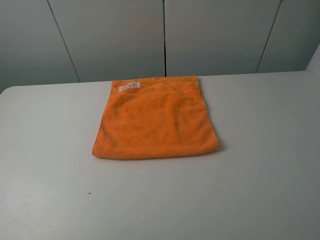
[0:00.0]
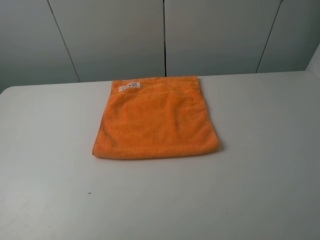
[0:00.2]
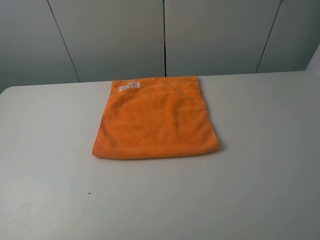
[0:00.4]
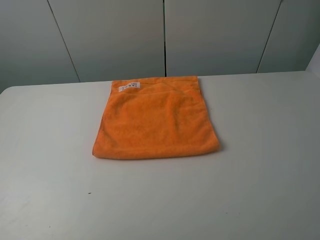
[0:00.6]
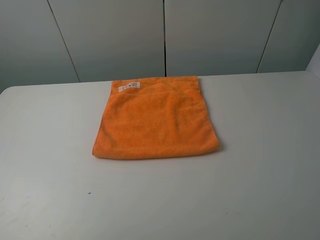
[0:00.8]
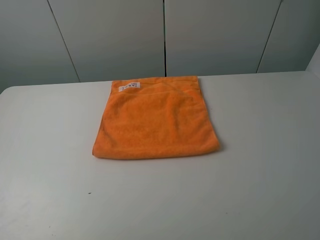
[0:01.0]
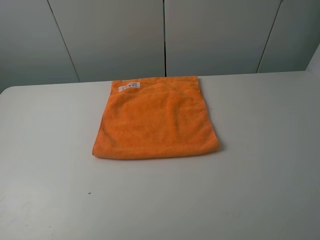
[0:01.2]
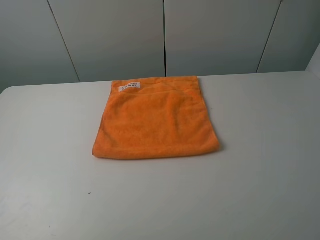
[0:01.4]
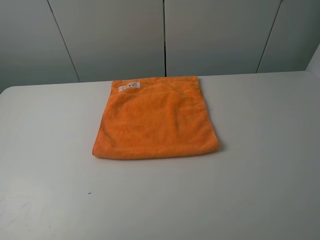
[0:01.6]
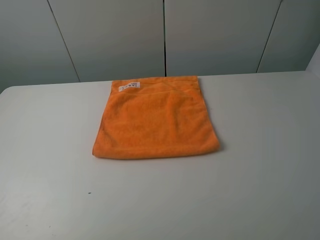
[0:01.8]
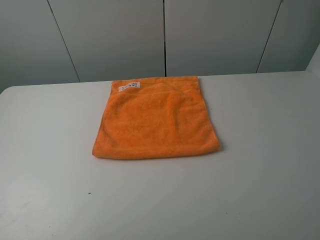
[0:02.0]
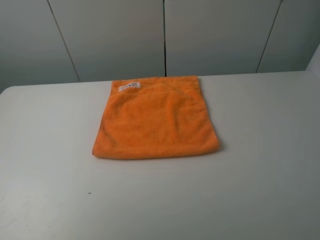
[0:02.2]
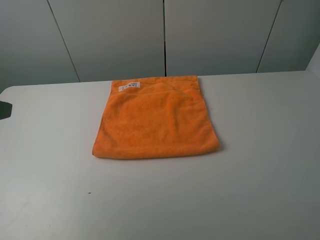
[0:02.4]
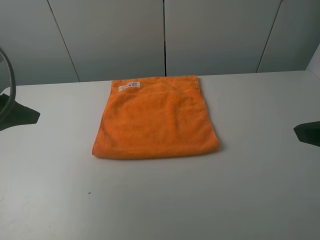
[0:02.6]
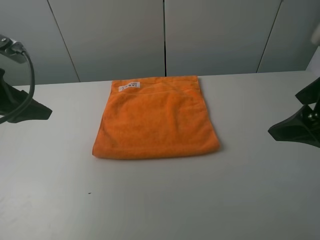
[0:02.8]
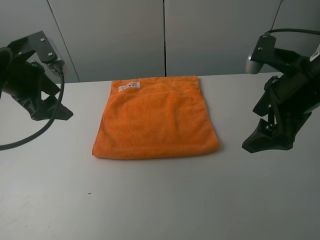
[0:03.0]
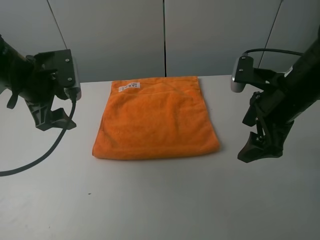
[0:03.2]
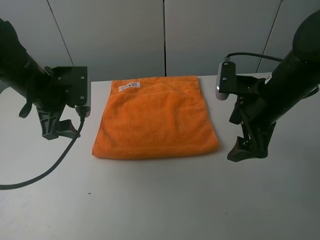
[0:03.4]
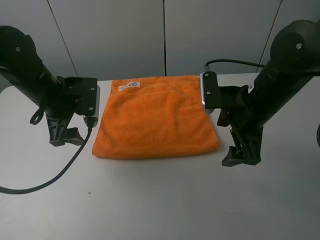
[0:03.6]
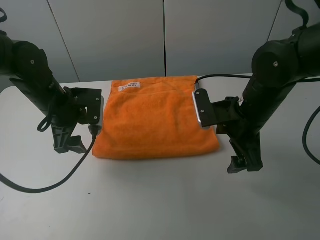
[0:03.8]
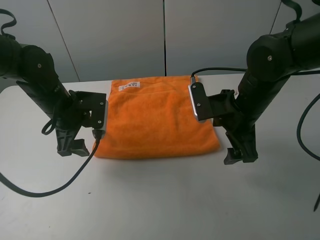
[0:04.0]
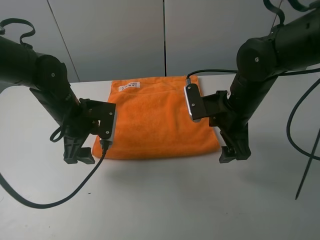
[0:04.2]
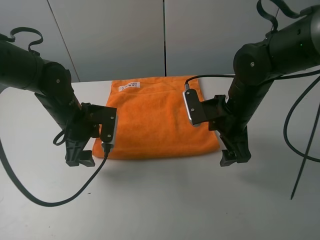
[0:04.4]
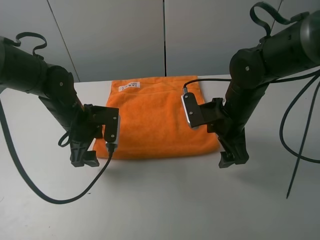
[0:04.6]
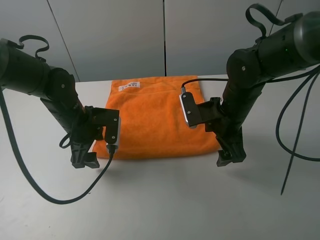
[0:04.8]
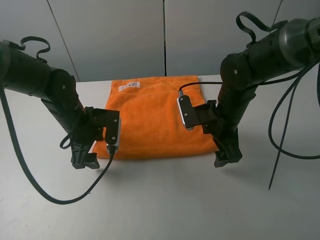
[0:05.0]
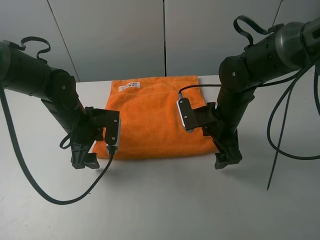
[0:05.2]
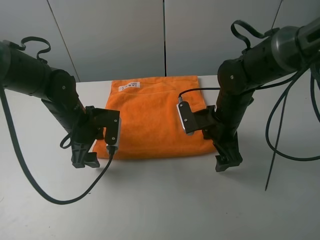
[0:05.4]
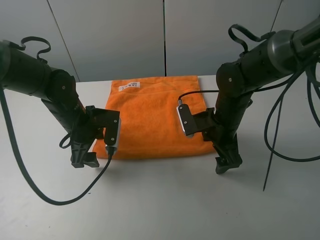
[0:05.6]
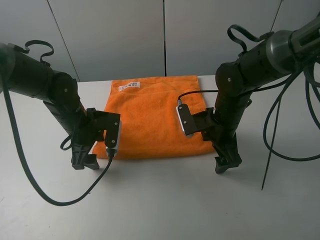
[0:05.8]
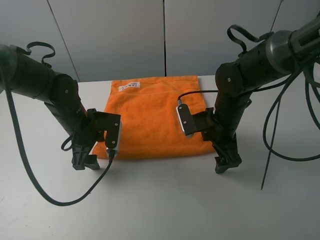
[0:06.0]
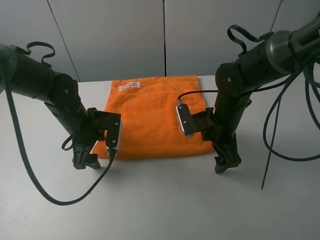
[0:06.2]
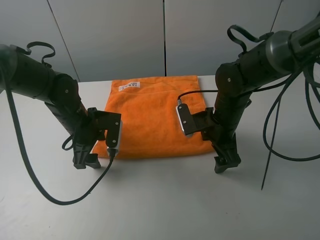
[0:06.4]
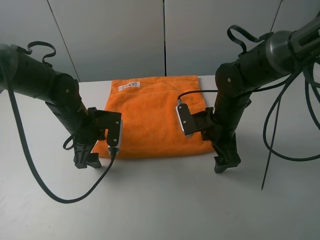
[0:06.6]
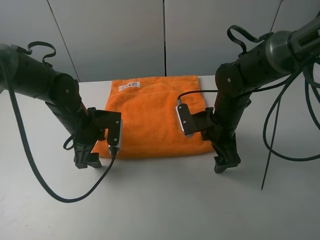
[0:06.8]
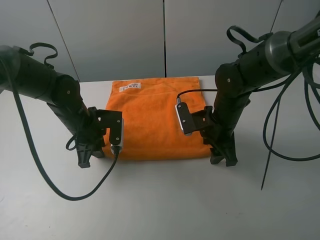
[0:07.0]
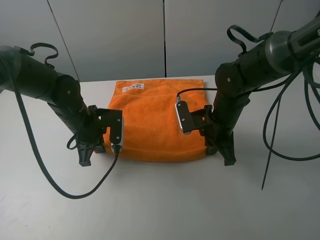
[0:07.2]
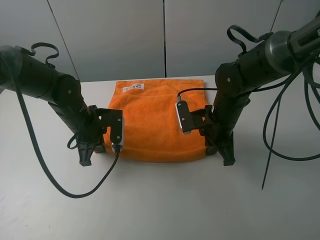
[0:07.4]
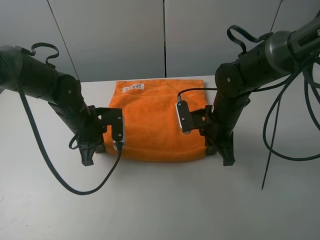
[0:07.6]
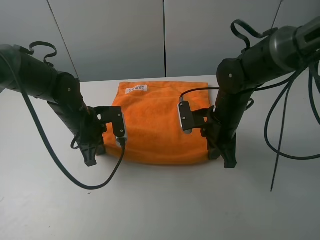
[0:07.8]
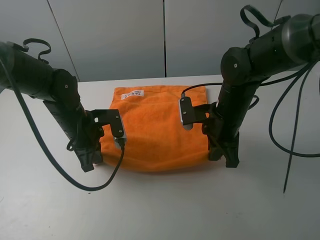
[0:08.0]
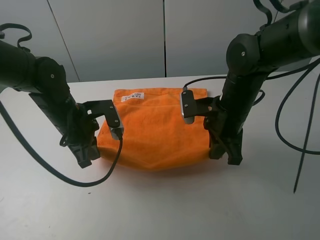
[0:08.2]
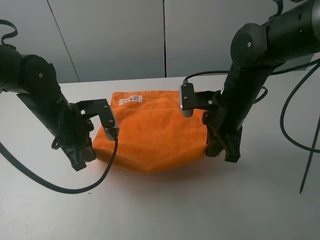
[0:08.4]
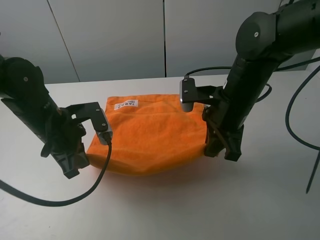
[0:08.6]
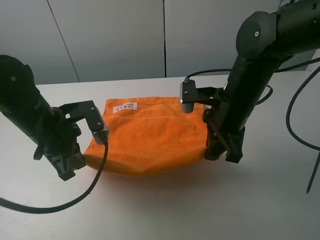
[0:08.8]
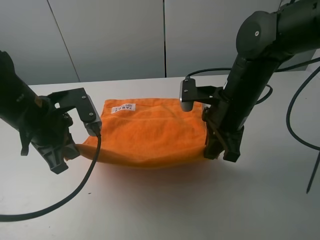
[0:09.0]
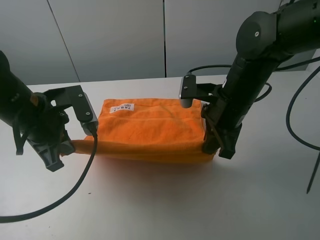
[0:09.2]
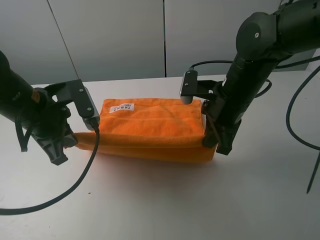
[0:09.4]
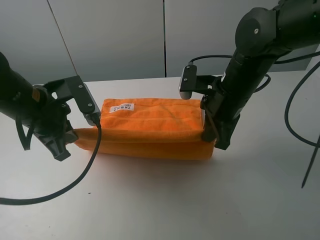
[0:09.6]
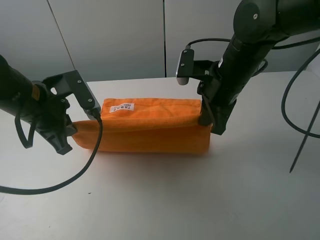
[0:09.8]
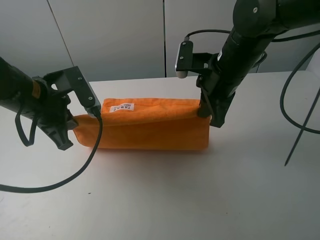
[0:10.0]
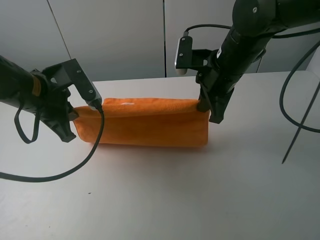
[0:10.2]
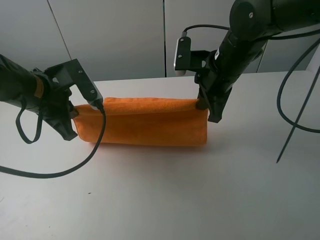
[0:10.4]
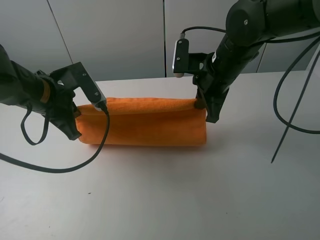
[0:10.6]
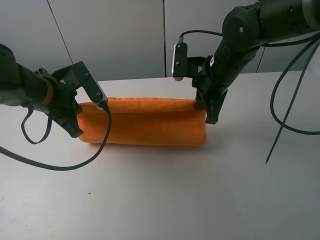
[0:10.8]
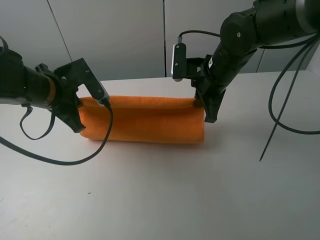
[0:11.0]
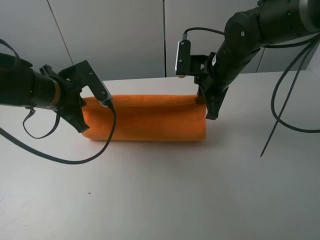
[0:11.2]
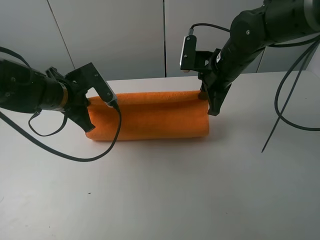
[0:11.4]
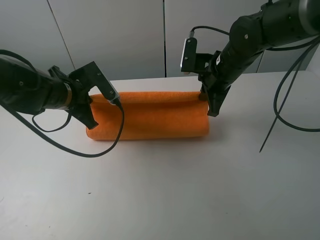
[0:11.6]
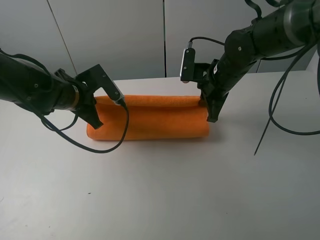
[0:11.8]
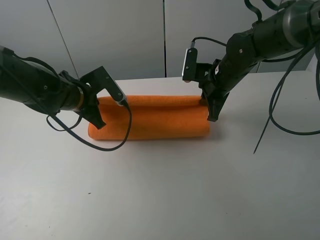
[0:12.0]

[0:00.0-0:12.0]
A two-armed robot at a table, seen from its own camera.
Task of the whole recording: fold the towels on the table.
Step, 0:00.0 to 0:07.4: Grasp the orange towel with the left gripper.
0:00.0 to 0:01.6: Both grippers stay about where they are.
0:01.6 to 0:03.0: The two grippers go some 25 cm forward.
0:03.0 to 0:04.4: The left gripper heads downward and to the right, covering approximately 15 cm. Meanwhile the right gripper shifts about 10 cm downward and to the left.
0:04.4 to 0:06.0: The grippers stay close to where they were, moving slightly.
0:06.0 to 0:07.6: The left gripper closes up, while the right gripper closes.
0:07.6 to 0:09.0: The right gripper moves upward, roughly 10 cm, while the left gripper shifts about 15 cm upward and backward.
0:09.0 to 0:10.4: The right gripper moves forward, approximately 5 cm.
0:10.4 to 0:12.0: The grippers both shift downward and forward by approximately 10 cm.

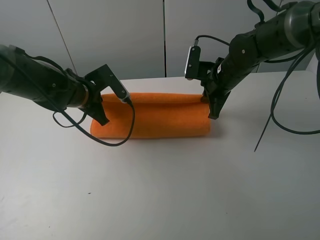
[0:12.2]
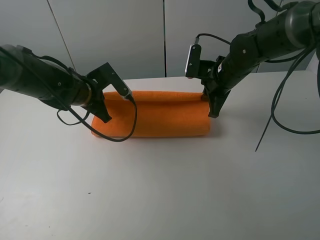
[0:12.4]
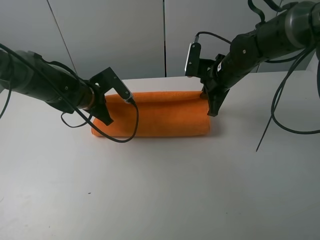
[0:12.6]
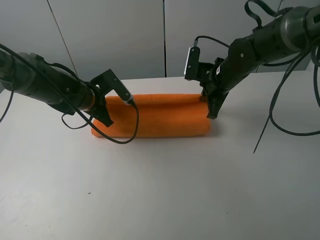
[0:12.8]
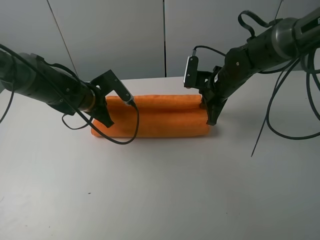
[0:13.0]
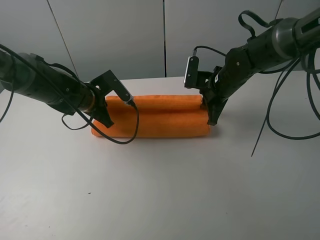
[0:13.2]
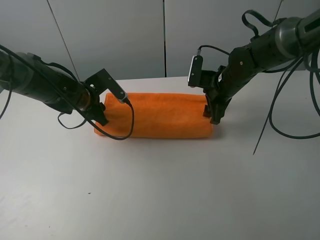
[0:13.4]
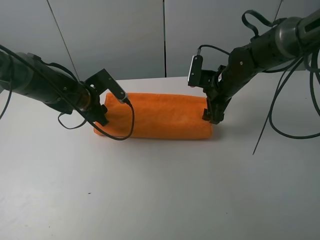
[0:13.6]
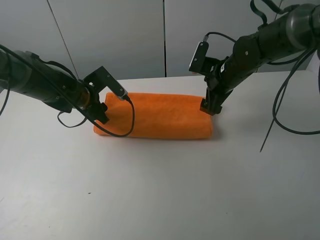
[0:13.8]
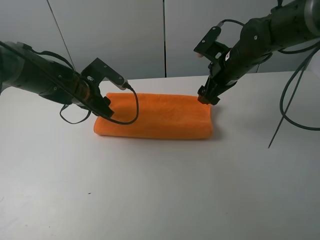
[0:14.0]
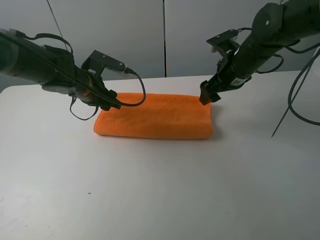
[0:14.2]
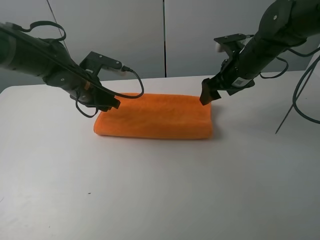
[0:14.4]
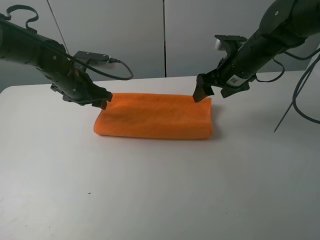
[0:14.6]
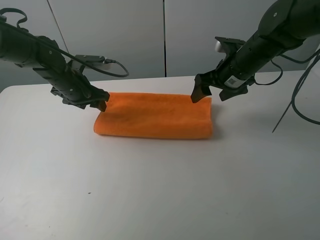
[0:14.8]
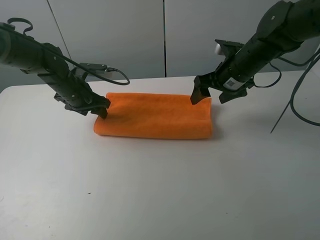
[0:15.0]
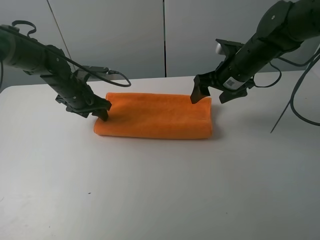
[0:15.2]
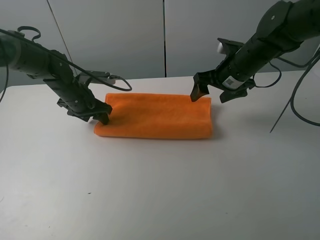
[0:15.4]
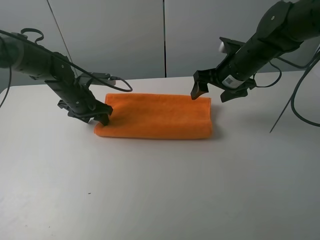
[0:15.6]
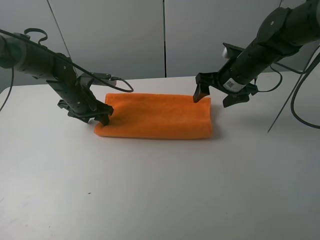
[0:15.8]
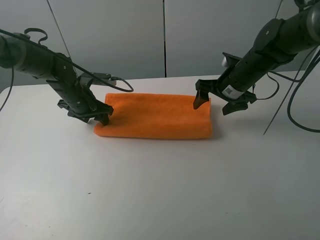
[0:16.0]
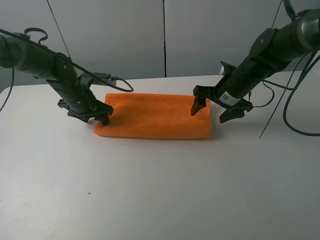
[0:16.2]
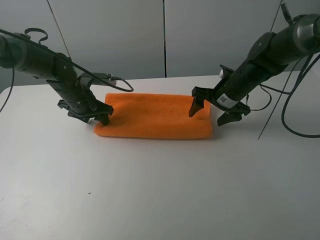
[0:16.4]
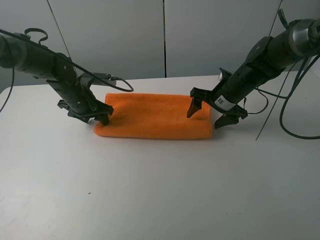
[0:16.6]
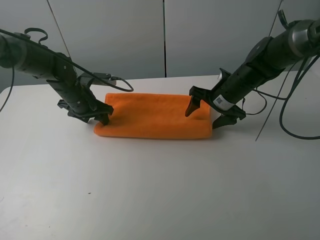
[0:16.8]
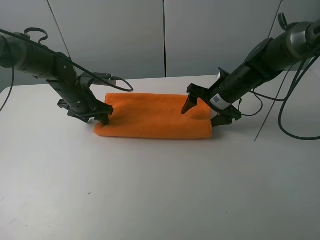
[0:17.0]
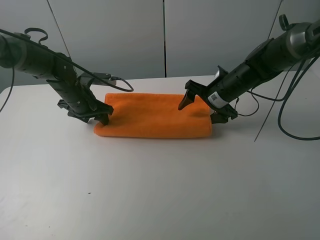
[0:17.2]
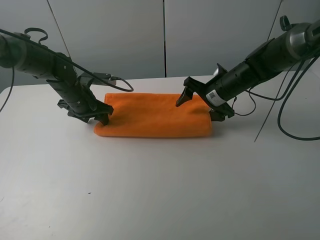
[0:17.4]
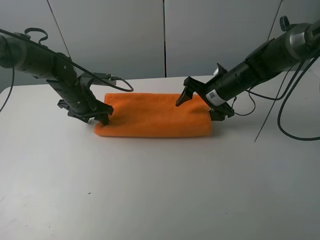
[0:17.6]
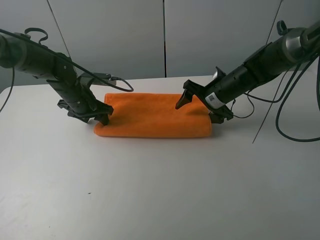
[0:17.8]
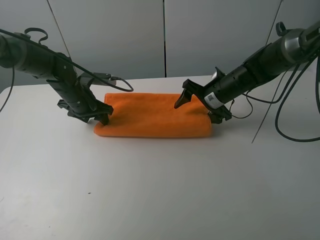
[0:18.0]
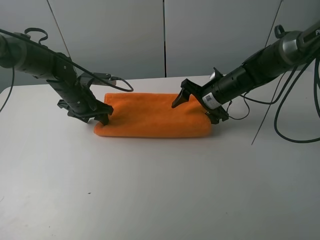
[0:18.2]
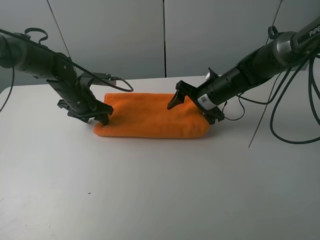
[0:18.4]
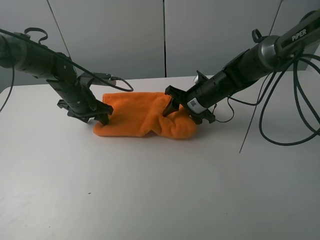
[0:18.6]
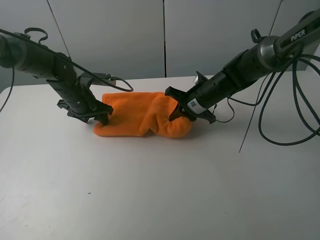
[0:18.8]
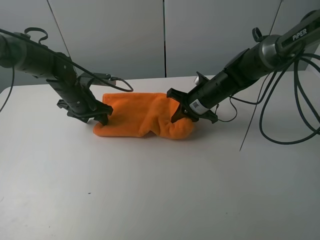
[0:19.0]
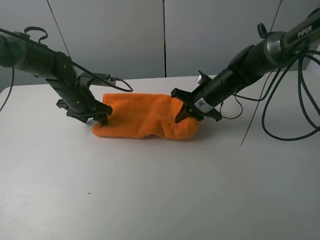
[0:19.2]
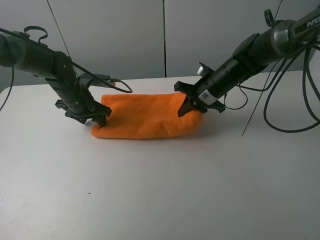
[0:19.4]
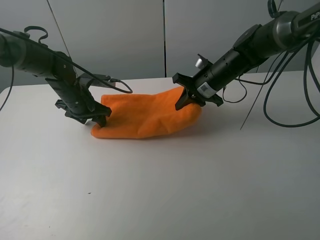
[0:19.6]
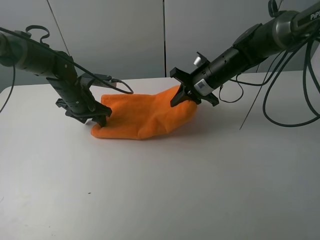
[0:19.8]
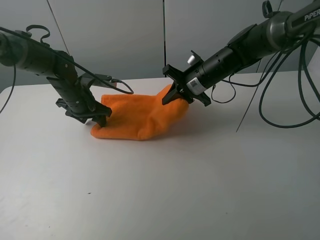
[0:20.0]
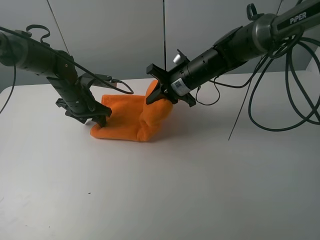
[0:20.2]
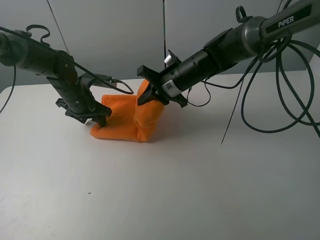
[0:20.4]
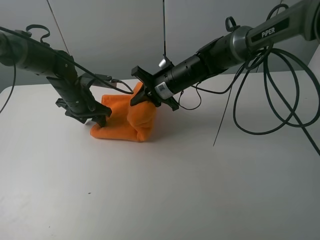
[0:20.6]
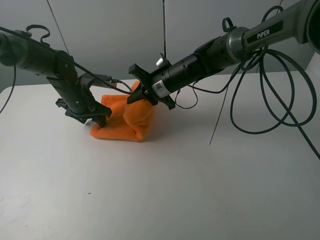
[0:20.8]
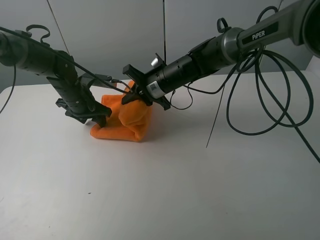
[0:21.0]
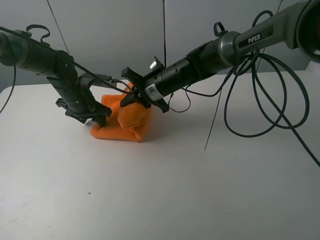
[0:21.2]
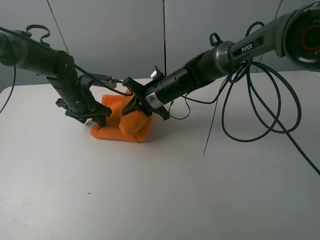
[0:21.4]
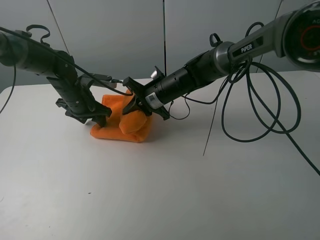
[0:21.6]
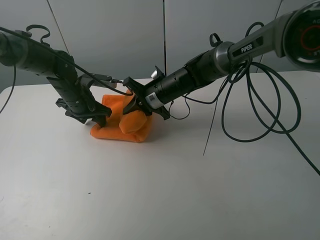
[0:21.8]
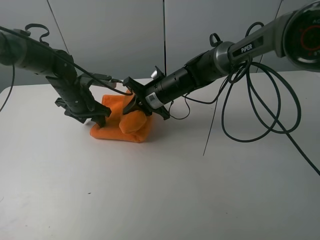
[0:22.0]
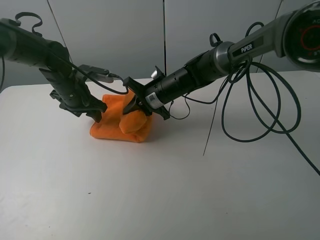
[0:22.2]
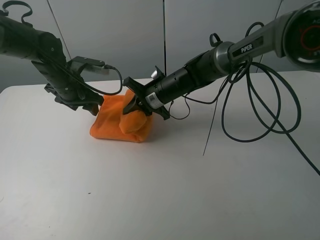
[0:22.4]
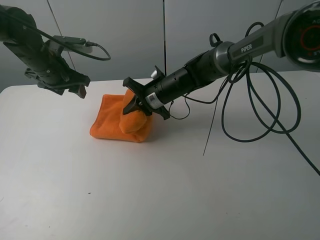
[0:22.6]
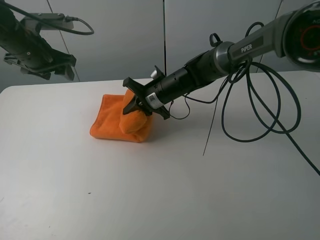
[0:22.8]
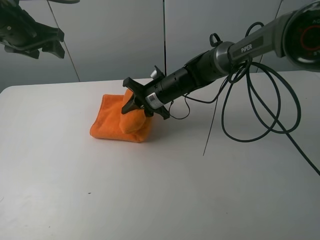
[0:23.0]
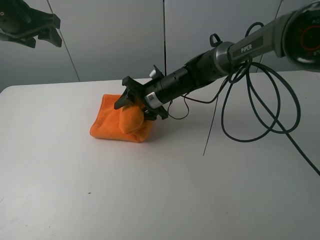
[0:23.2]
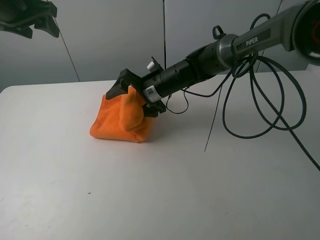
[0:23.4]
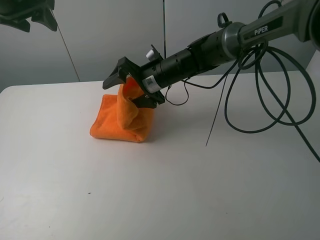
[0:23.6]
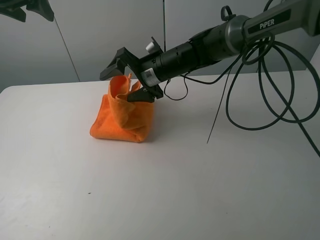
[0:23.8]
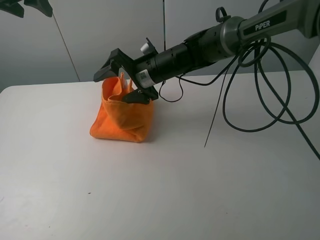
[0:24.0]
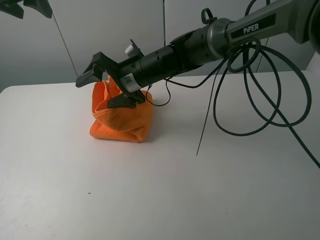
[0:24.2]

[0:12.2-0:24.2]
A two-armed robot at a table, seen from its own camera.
Task of the whole recording: fold the towels on the table.
Step, 0:14.2 to 0:15.6: Press on the orange towel with the left gripper.
0:12.2 to 0:13.8: The left gripper opens up; the right gripper opens.
0:15.2 to 0:16.6: The right gripper moves downward, approximately 5 cm.
0:16.6 to 0:18.2: The grippers make only small movements.
0:18.2 to 0:19.8: The right gripper ends up about 5 cm from where it was, and closes.
0:19.8 to 0:21.2: The right gripper goes roughly 10 cm to the left.
0:21.2 to 0:22.6: The left gripper is displaced upward by roughly 10 cm.
0:22.6 to 0:24.2: The left gripper is displaced upward by about 15 cm; the right gripper shifts approximately 10 cm upward and to the left, and opens up.
